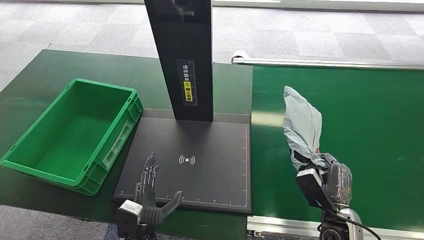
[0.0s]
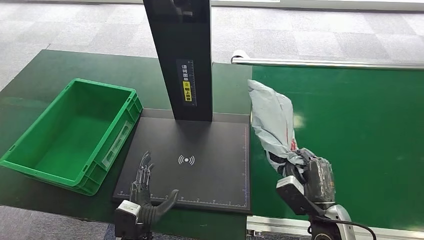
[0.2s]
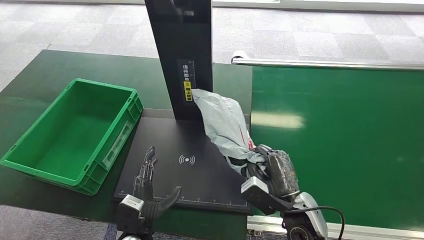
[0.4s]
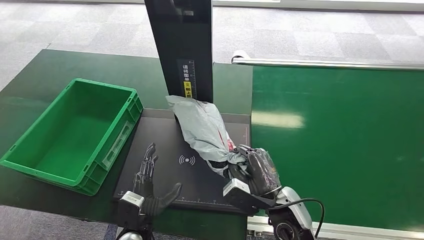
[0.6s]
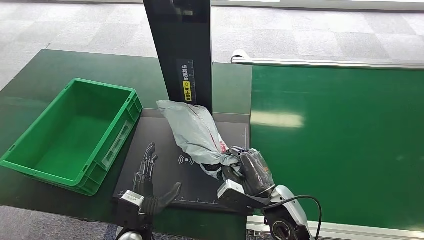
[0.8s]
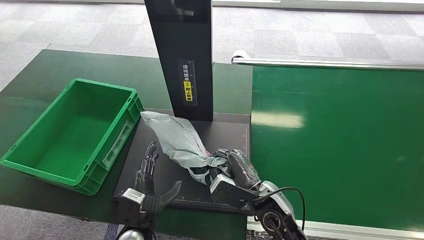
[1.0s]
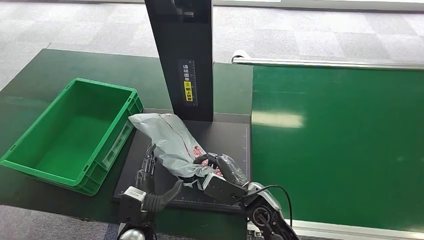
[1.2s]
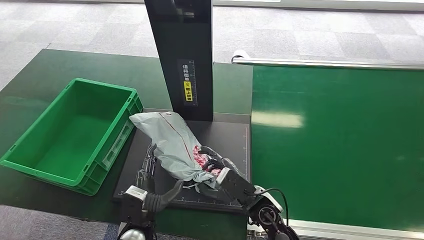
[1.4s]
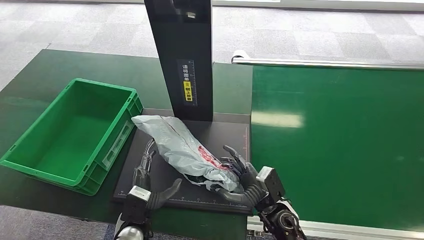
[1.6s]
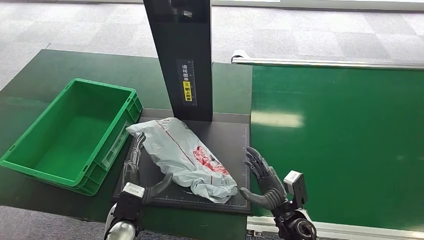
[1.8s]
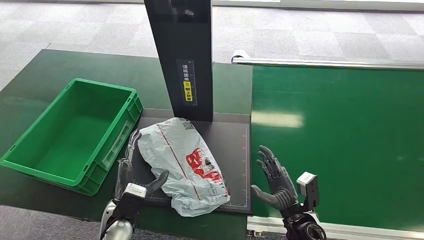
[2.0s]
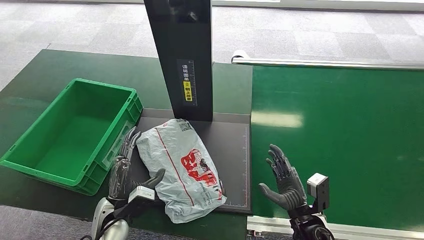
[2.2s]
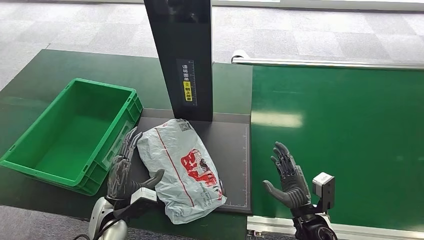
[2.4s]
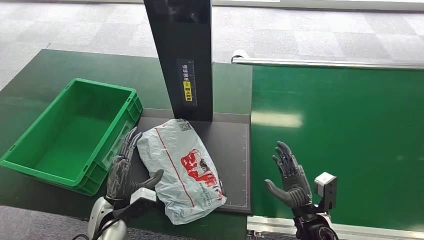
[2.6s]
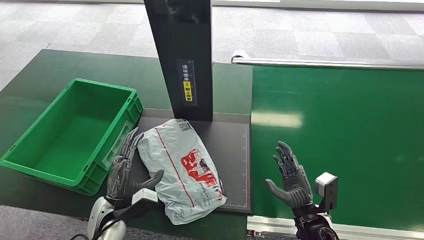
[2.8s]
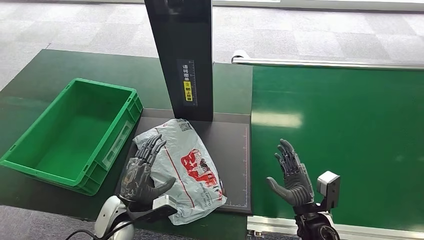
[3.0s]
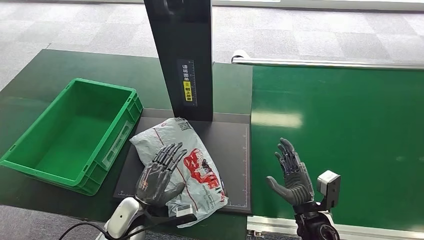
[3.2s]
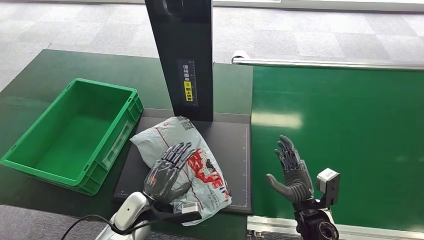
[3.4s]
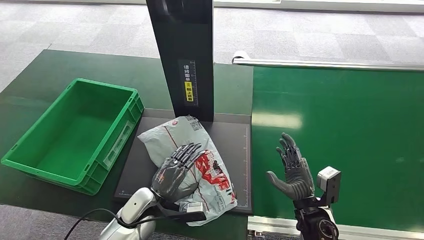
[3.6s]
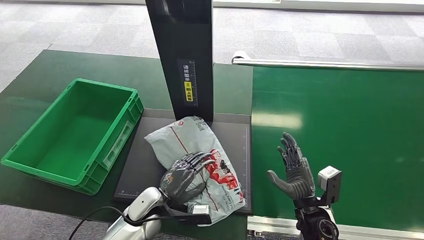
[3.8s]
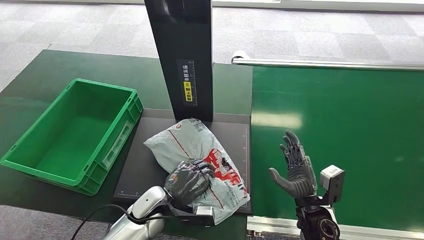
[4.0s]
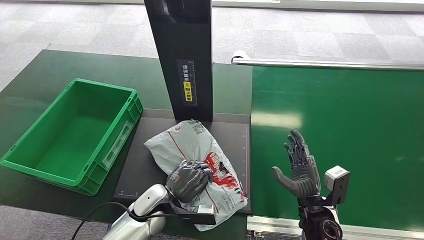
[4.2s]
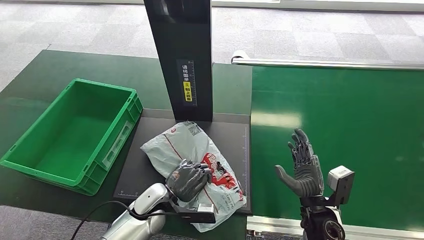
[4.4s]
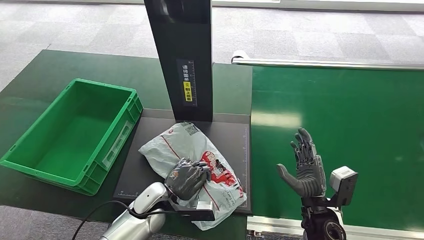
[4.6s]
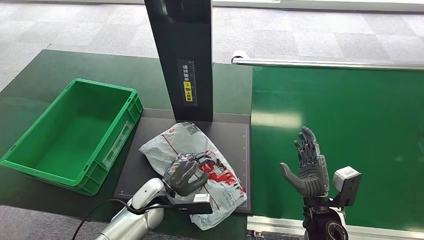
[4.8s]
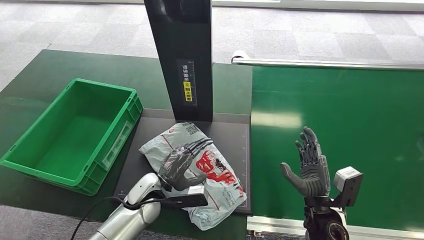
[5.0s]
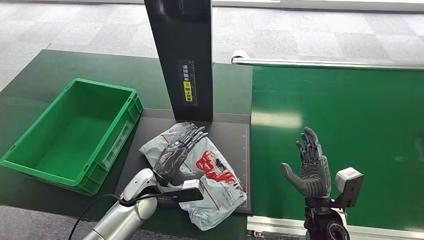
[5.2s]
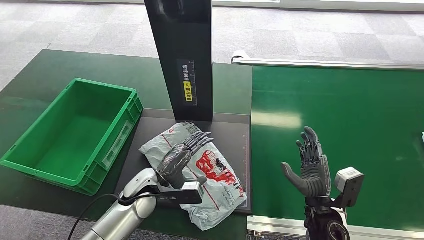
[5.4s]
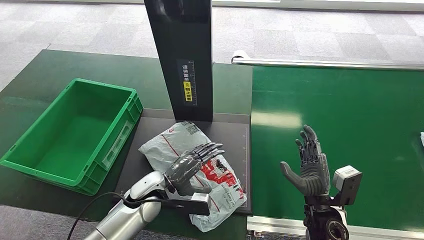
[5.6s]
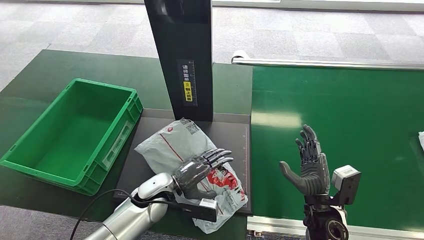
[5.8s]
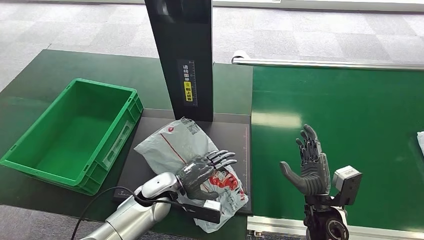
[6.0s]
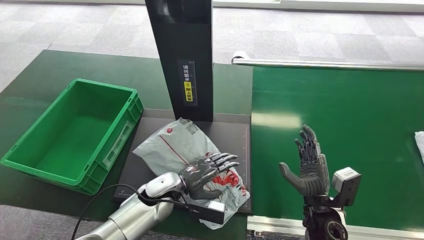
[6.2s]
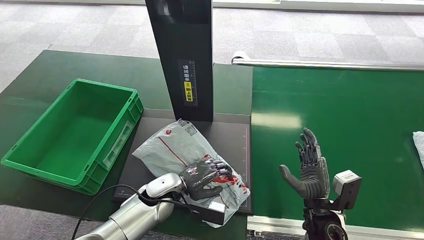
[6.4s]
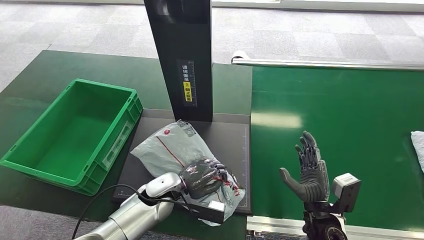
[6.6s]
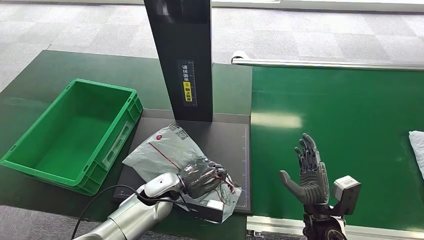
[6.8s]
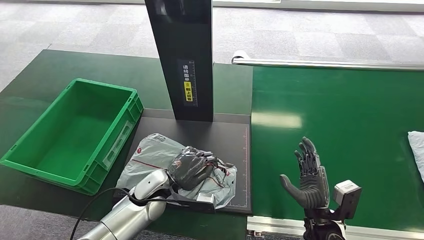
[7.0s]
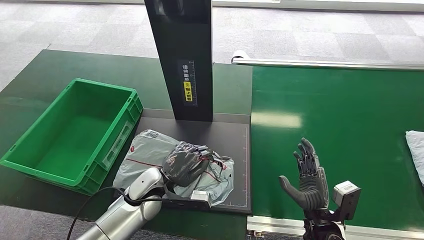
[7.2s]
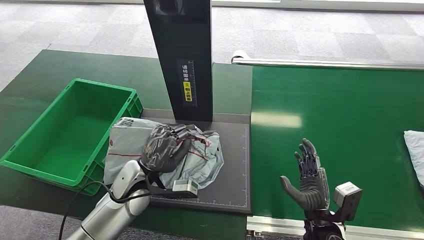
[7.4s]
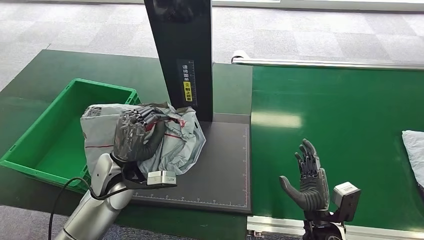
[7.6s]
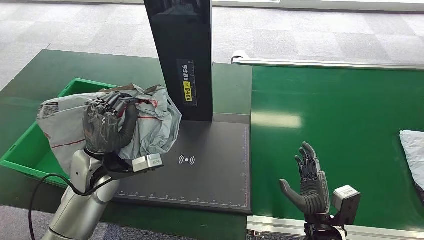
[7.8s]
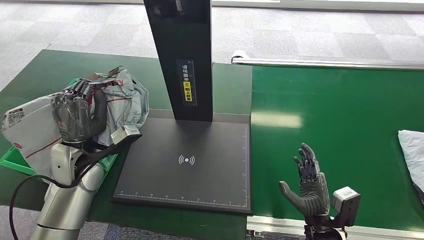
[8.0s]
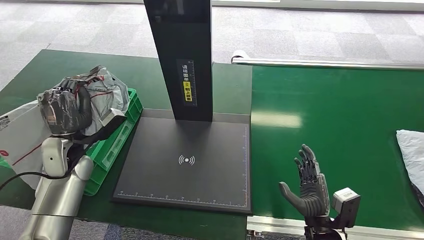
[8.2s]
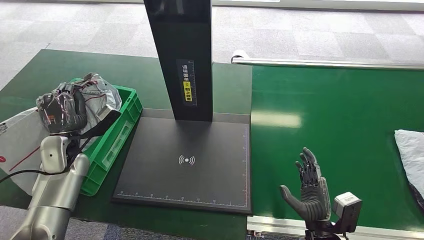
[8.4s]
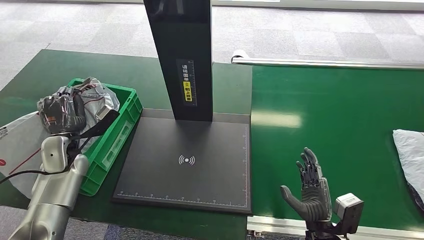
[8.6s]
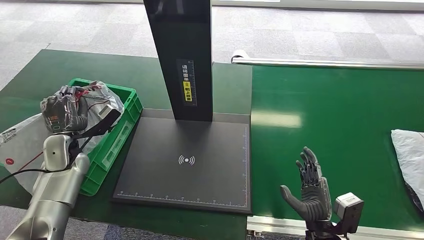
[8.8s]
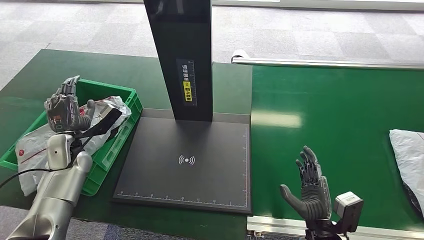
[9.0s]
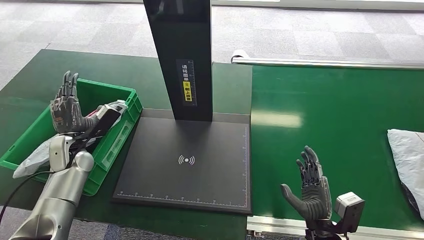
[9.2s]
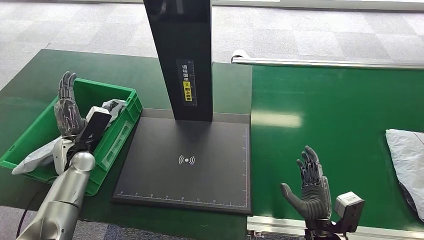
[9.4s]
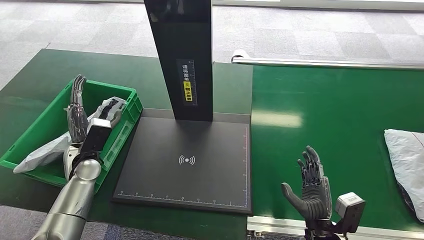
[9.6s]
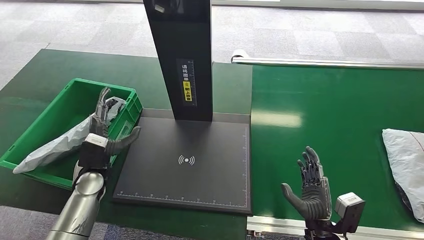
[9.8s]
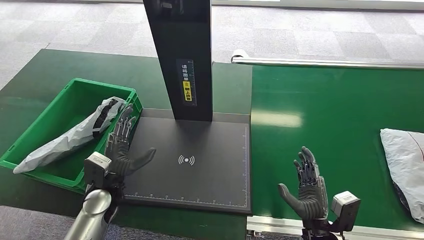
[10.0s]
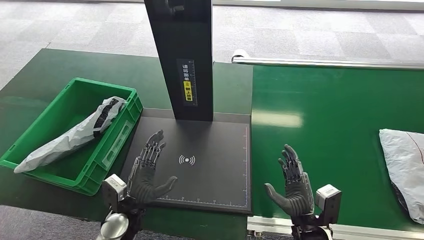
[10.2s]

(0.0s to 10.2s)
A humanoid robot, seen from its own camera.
Step, 0.4s - 2.0s: Place the package onto the inbound machine.
Step, 2.2s - 7.8s: Pick up the package from the inbound machine.
Step, 8.0s - 10.2s: Place the package into the parcel locker.
0.0s - 1.4s: The right hand shifts some 15 cm to the left.
1.4s - 3.0s: The right hand goes some 10 cm to the right, while the left hand heads to the left, covering roughly 5 cm.
3.0s - 4.4s: The left hand travels to the right and forward by approximately 10 cm.
4.4s - 7.2s: The hands move only a little.
8.8s - 10.2s: The left hand moves to the right, backward and downward, about 25 cm.
